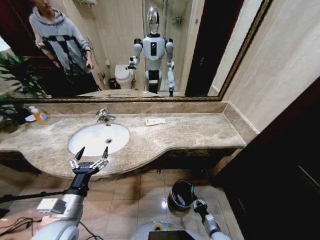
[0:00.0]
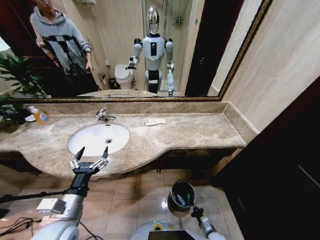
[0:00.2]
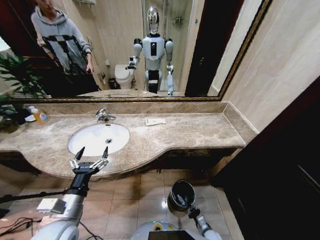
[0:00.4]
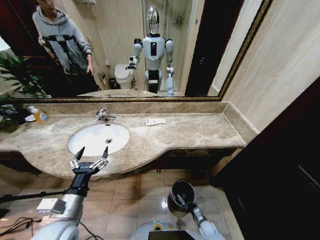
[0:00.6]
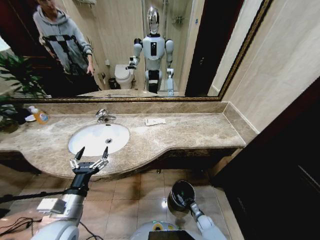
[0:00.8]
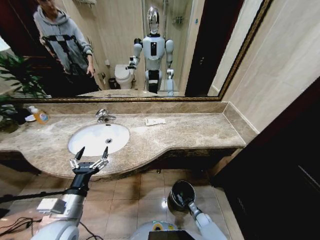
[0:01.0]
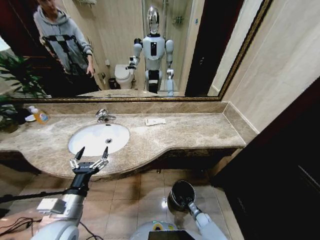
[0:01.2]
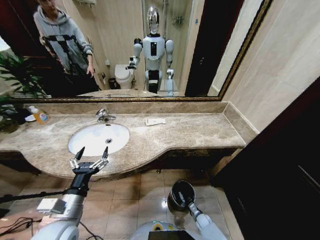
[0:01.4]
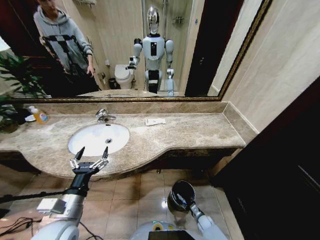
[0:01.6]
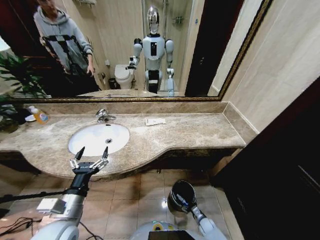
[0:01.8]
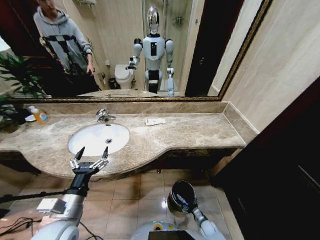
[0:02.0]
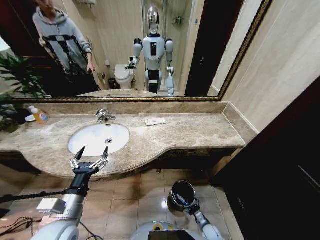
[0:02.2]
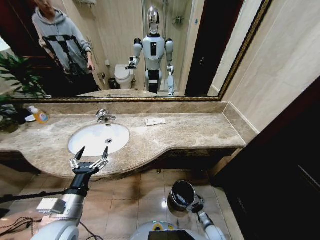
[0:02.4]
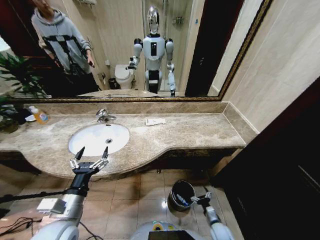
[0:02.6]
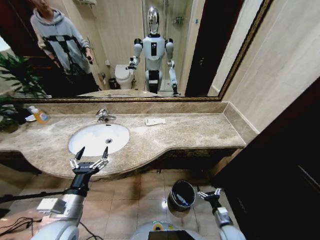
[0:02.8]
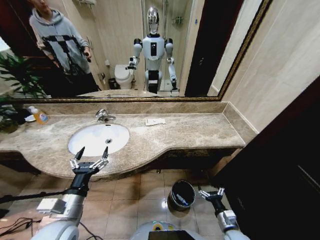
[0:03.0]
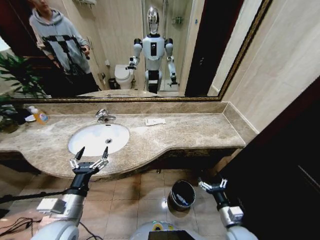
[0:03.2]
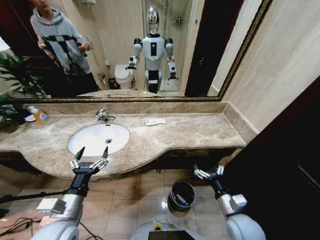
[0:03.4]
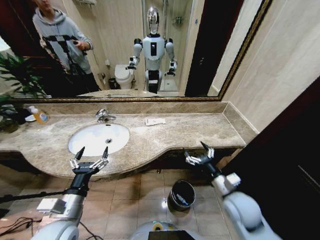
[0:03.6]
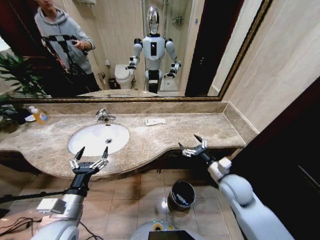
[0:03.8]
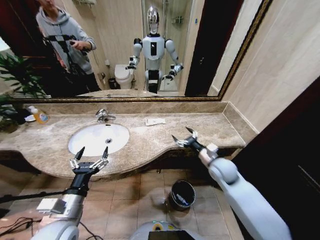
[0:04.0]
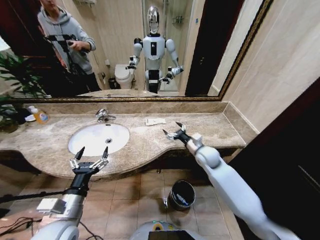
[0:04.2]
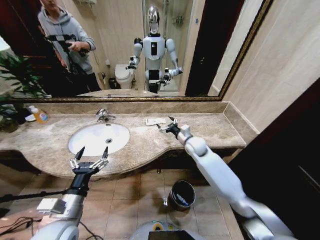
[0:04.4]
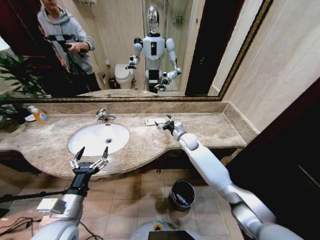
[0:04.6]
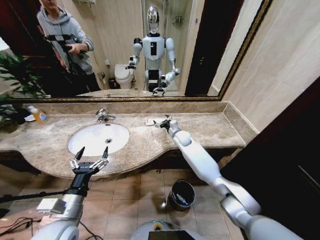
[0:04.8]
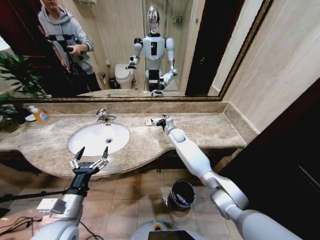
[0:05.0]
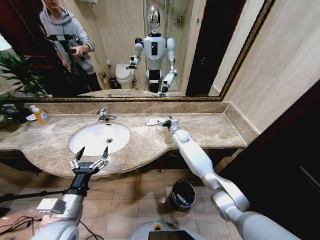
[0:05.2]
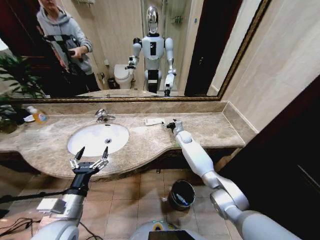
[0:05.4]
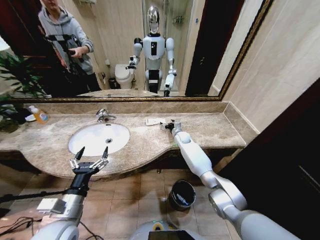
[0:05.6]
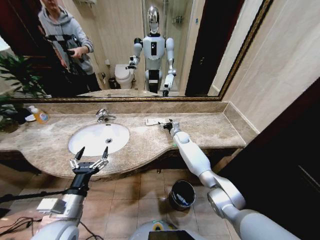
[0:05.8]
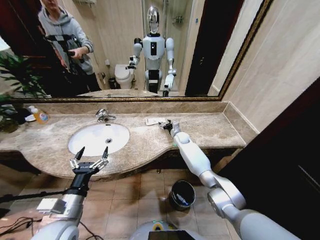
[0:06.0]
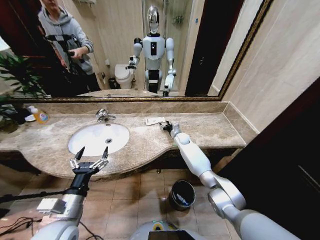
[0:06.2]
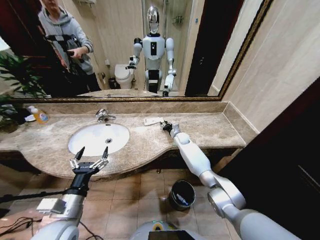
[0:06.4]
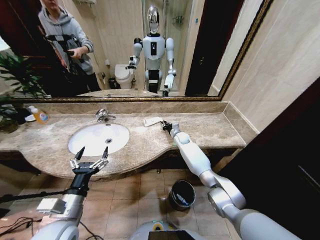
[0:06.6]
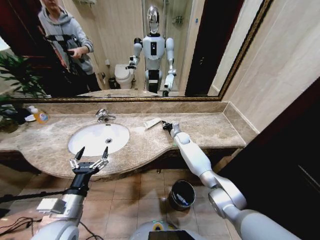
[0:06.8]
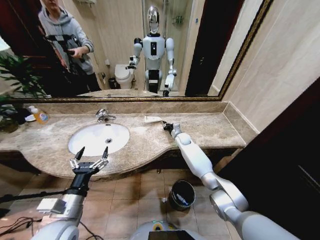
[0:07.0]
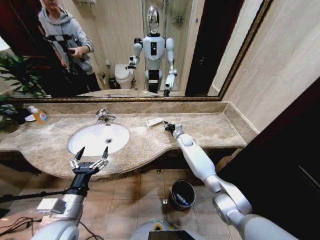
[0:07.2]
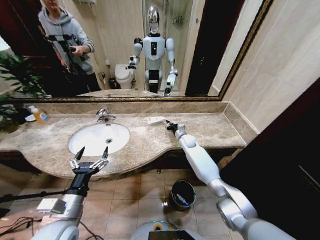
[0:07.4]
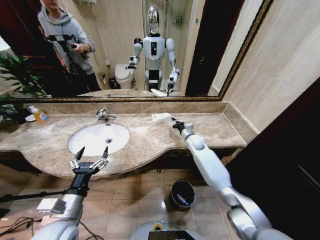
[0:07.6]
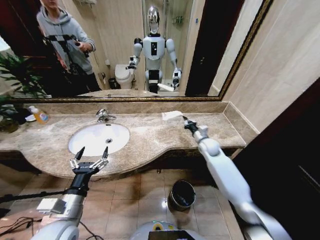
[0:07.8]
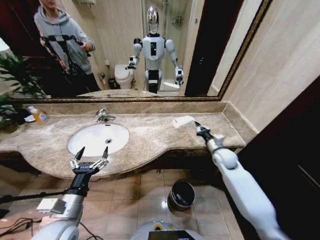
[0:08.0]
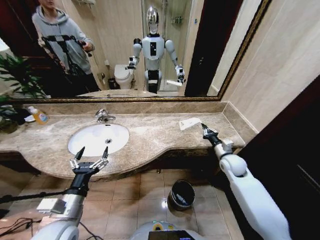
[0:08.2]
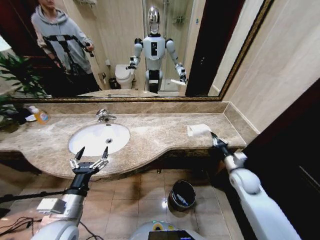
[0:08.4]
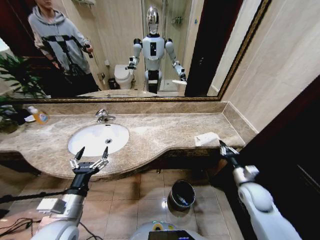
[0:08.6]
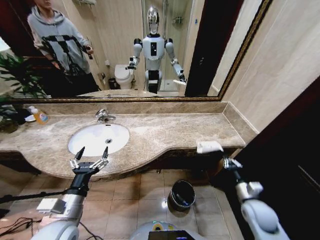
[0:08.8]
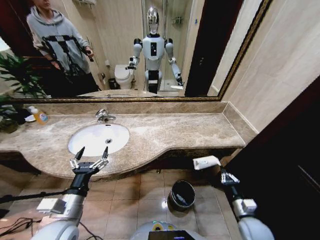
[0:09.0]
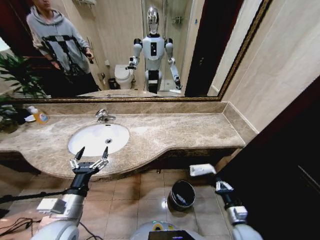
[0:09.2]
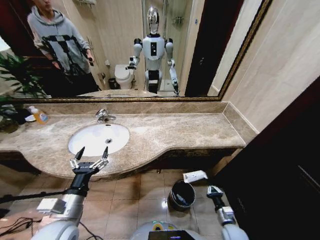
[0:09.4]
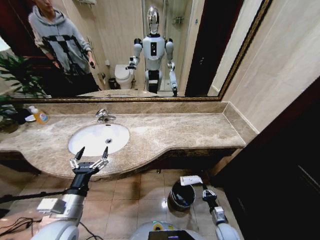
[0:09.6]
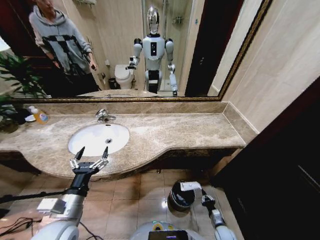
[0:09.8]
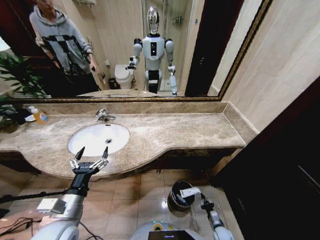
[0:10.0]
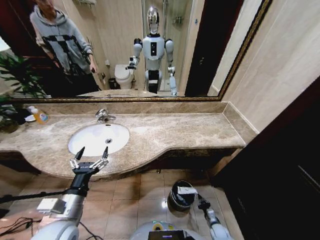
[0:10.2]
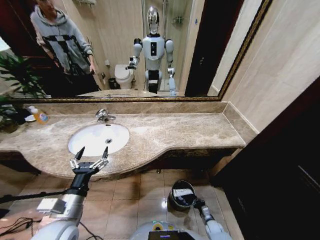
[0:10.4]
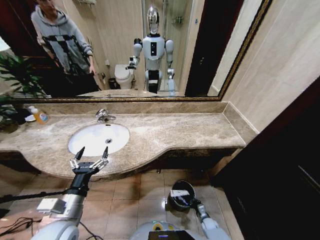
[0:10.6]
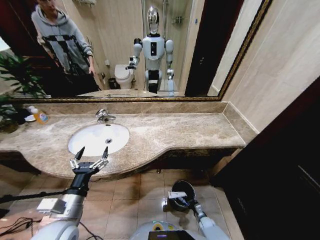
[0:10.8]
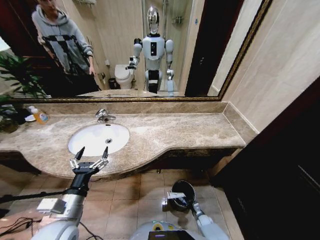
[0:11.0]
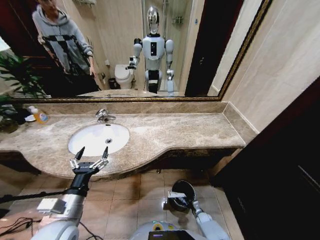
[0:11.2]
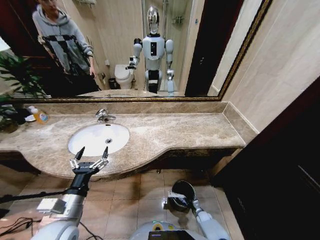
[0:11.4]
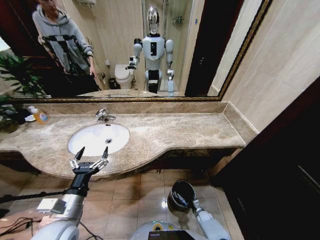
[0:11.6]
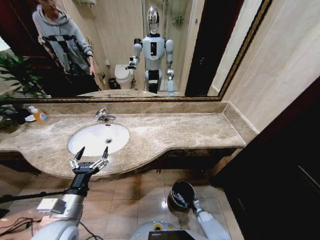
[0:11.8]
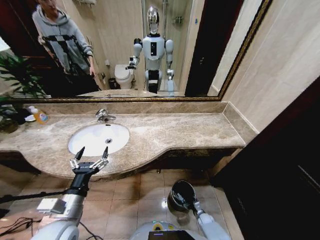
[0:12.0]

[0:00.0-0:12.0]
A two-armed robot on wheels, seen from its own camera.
Task of the whole recording: Pick up the trash from the sink and place it in the trash bin.
0:00.0 to 0:01.6: The right gripper heads downward and forward, covering some 15 cm, and opens.
0:01.6 to 0:03.0: The right gripper is displaced upward by roughly 25 cm, and opens its fingers.
0:03.0 to 0:04.4: The right gripper moves forward and upward, some 40 cm.
0:04.4 to 0:06.0: The right gripper moves forward and downward, roughly 15 cm.
0:06.0 to 0:07.6: The right gripper heads backward and to the right, covering some 10 cm, and closes.
0:07.6 to 0:09.0: The right gripper heads backward, covering approximately 35 cm.
0:09.0 to 0:10.4: The right gripper heads downward, covering some 30 cm.
0:10.4 to 0:12.0: The right gripper opens its fingers.

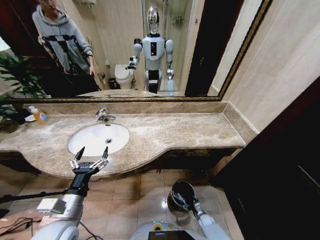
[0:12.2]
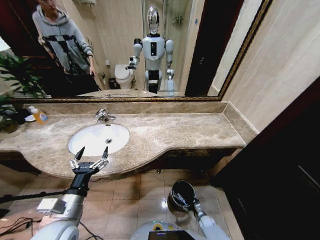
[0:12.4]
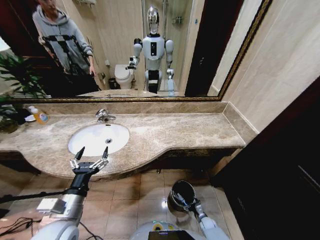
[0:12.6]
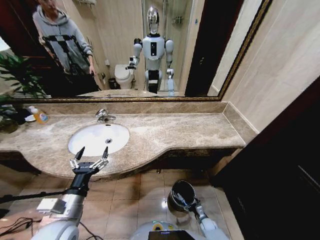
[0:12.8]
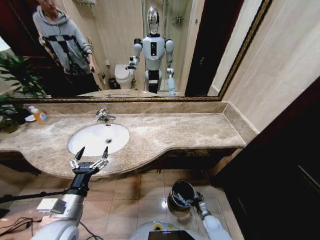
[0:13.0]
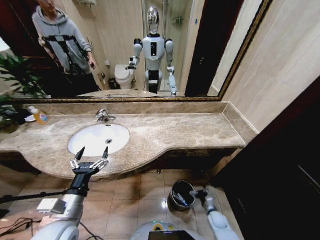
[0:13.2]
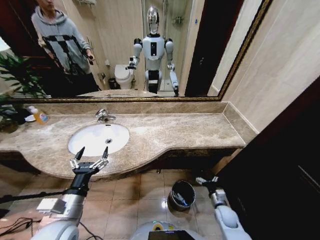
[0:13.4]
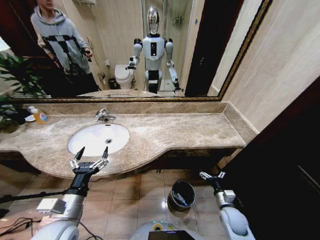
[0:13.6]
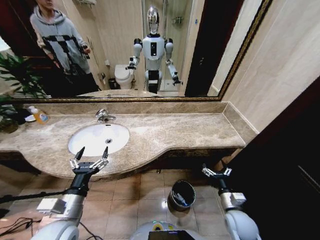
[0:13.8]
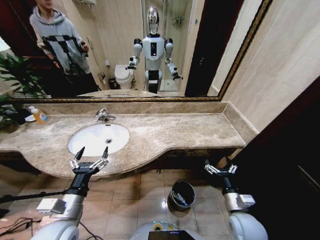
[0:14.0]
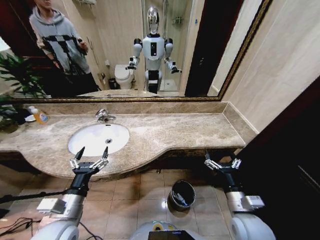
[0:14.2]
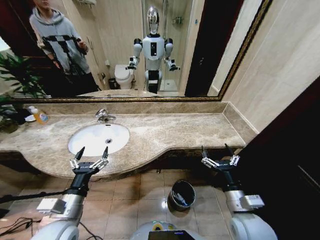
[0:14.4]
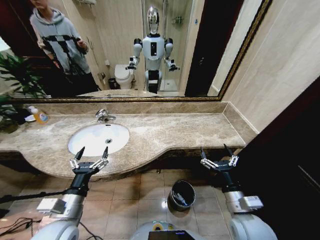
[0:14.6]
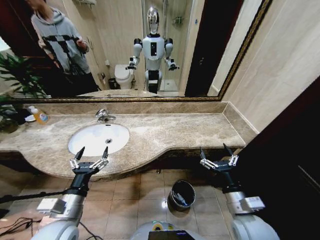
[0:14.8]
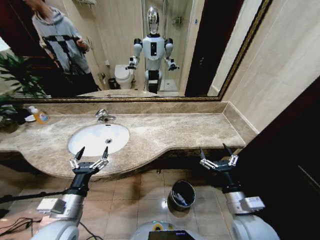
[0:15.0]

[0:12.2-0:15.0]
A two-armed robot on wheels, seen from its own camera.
Task of the whole recording: Pick up the trash from the sink and place it in the trash bin.
0:12.2 to 0:13.6: The right gripper goes some 25 cm upward.
0:13.6 to 0:15.0: The right gripper shifts some 20 cm upward.
